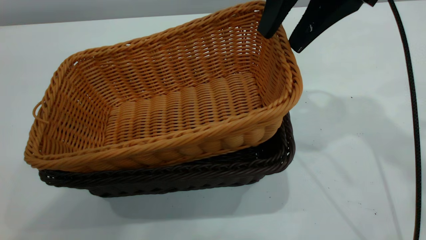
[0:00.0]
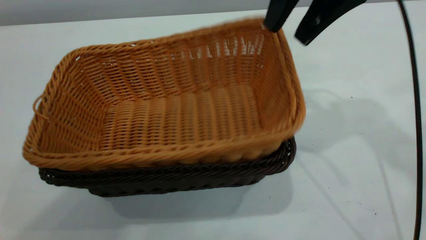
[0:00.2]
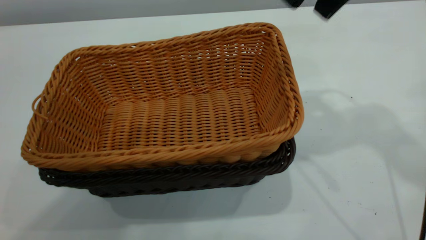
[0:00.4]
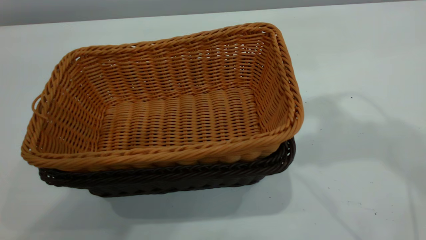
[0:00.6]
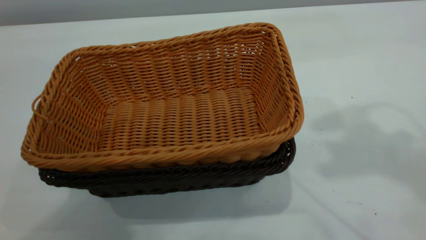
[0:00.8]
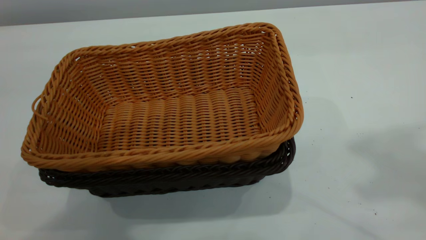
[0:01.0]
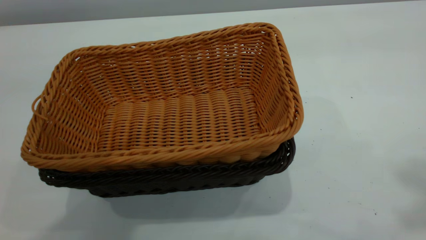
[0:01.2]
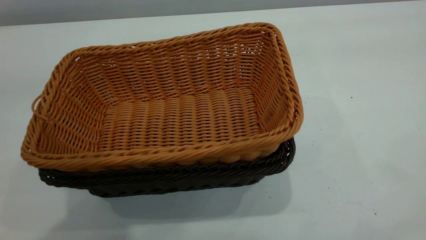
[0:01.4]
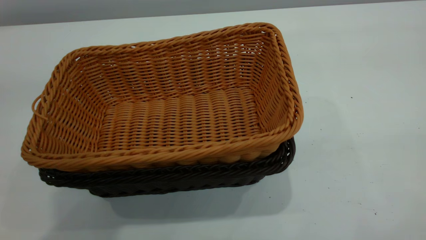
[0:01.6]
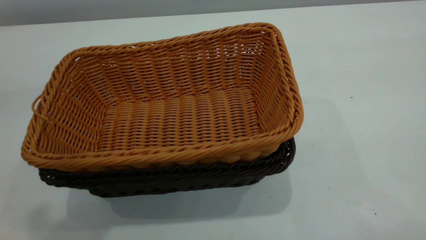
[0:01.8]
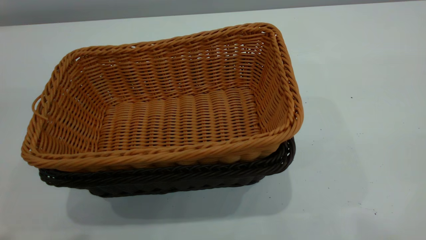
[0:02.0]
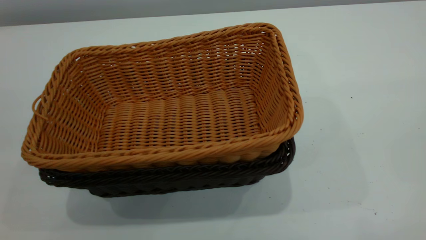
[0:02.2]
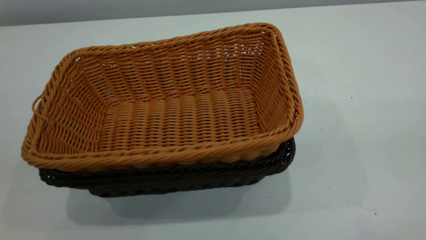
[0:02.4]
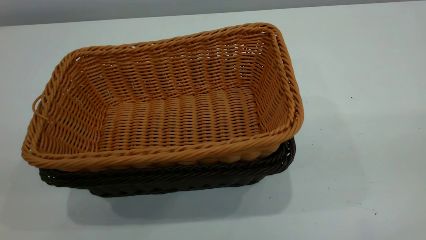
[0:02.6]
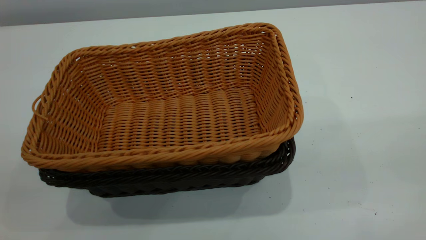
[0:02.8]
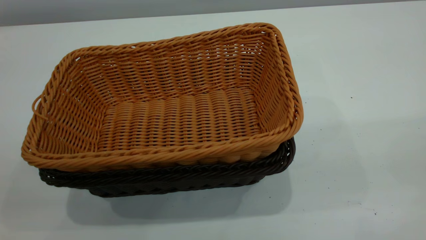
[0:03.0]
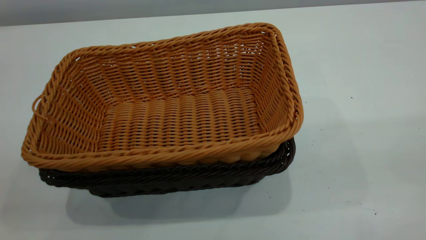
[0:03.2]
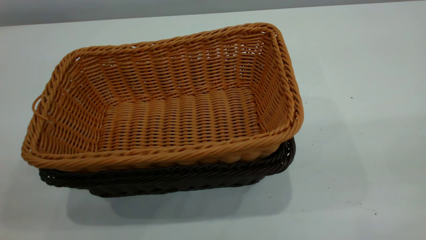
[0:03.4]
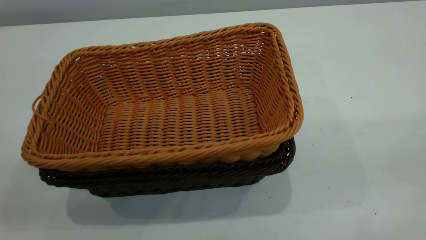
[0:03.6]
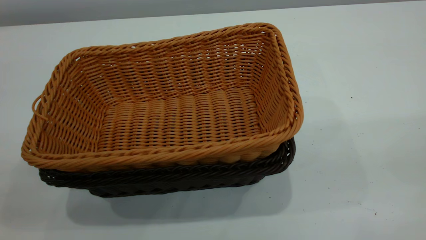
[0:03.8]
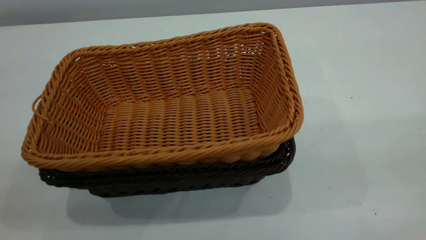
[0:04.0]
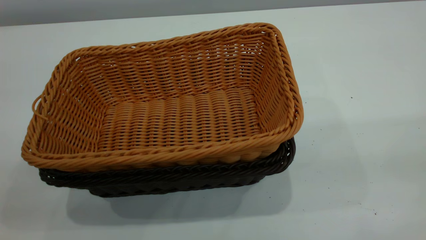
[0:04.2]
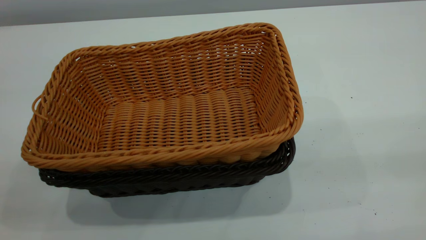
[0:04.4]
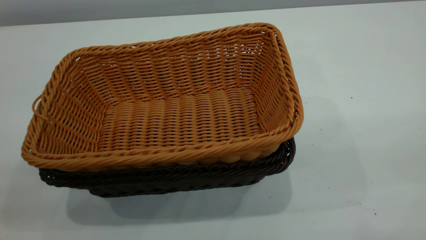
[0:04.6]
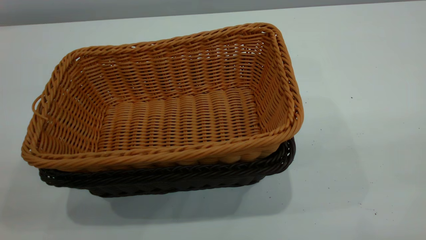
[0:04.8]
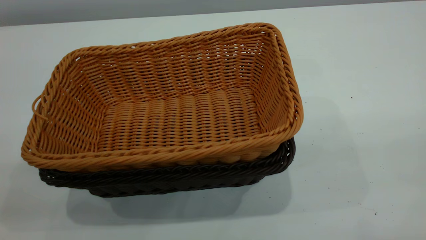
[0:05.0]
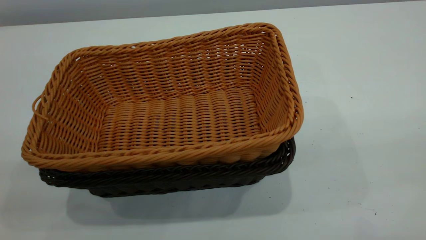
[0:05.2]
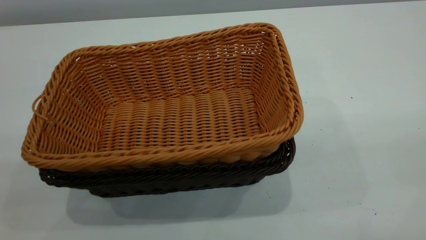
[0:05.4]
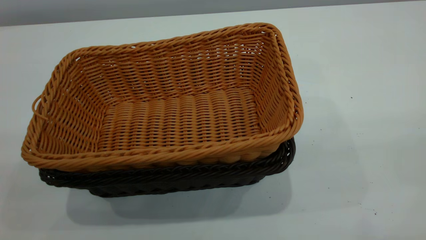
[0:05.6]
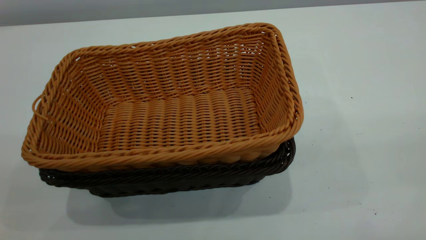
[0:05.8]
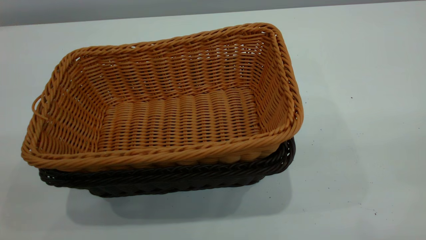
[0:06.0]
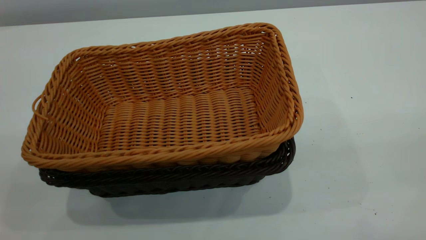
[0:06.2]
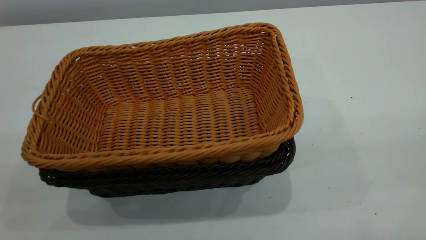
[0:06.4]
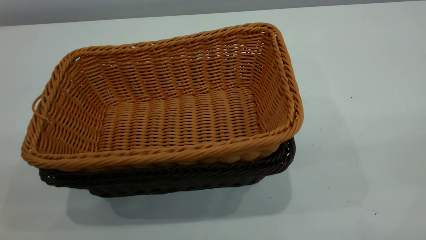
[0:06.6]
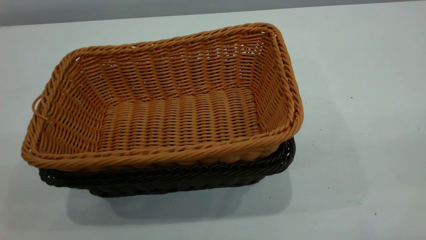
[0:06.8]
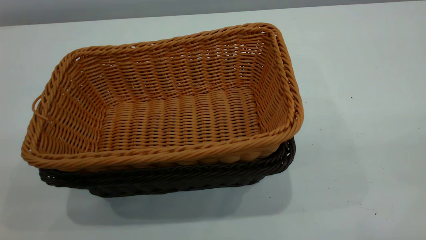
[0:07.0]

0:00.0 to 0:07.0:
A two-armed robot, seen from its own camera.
Task of the whole recording: the left gripper grasp the black basket and place it in the center of the table, the right gripper grasp the brown basket and place it inside the black one.
0:00.0 to 0:01.4: The right gripper travels upward, backward and to the right by approximately 35 cm, and closes up; the left gripper closes its fingers.
0:05.6 to 0:07.0: Both grippers stay put.
